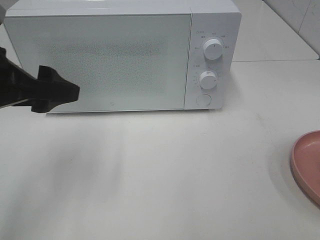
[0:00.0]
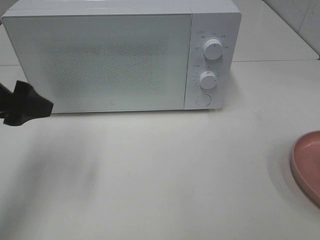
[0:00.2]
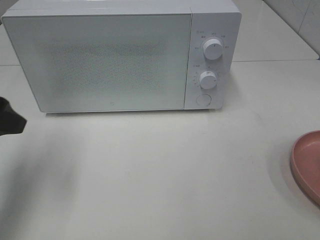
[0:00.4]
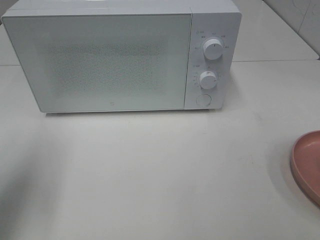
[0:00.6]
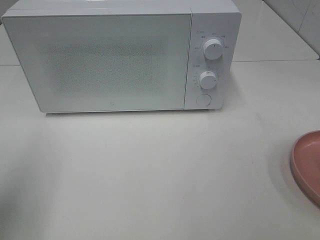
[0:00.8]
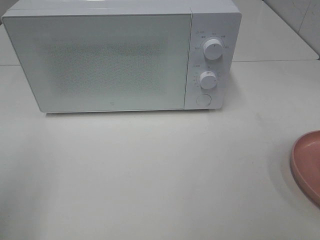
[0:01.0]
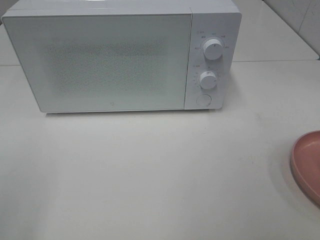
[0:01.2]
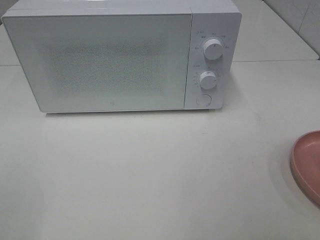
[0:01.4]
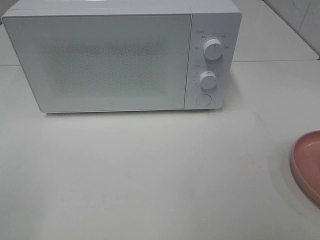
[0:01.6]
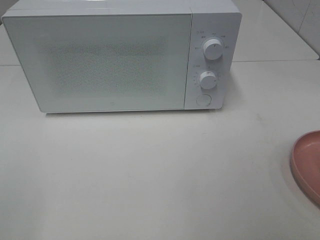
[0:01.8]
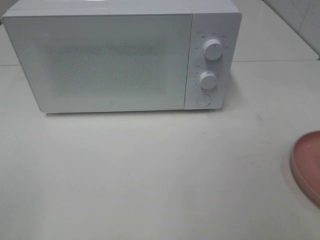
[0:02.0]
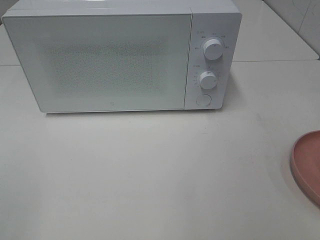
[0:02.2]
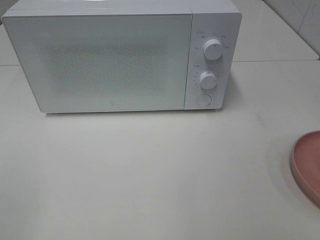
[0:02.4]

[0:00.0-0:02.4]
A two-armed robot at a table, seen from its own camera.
Task of the whole recording: Heat the burger.
0:00.0 to 0:01.2: The left gripper shifts about 20 cm backward and to the left.

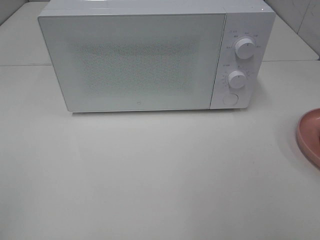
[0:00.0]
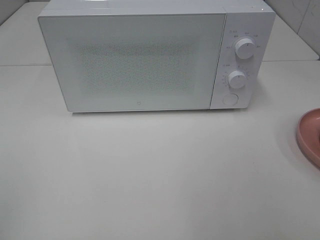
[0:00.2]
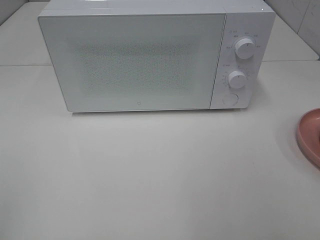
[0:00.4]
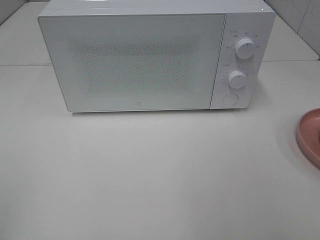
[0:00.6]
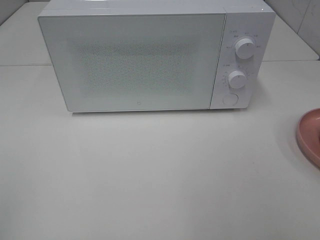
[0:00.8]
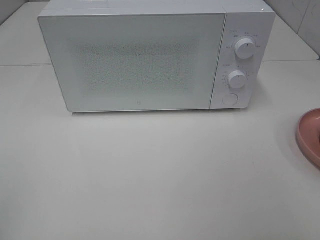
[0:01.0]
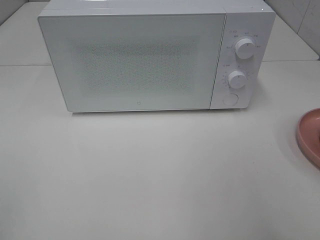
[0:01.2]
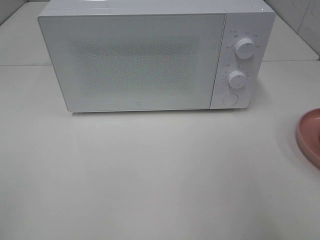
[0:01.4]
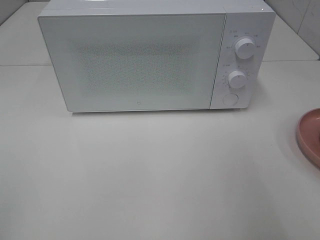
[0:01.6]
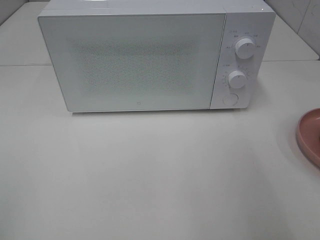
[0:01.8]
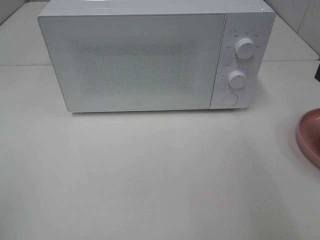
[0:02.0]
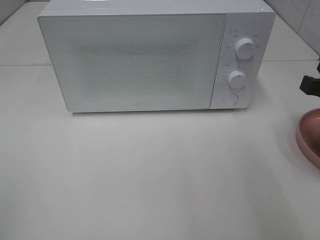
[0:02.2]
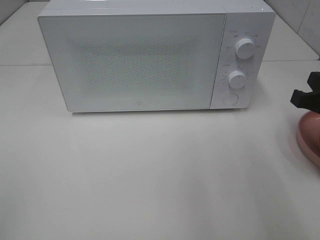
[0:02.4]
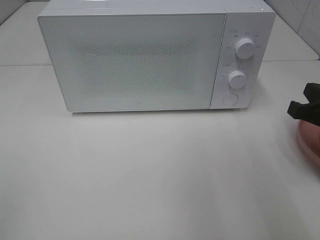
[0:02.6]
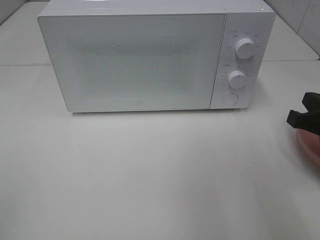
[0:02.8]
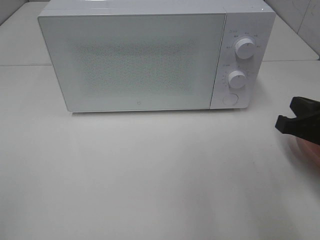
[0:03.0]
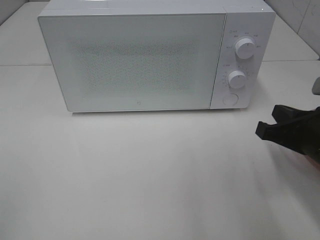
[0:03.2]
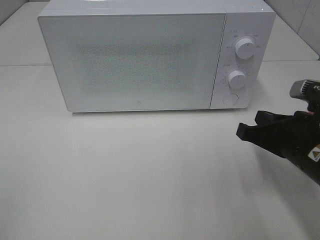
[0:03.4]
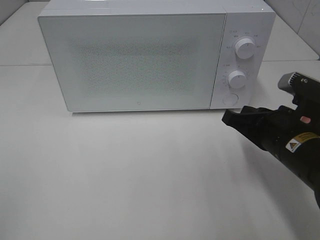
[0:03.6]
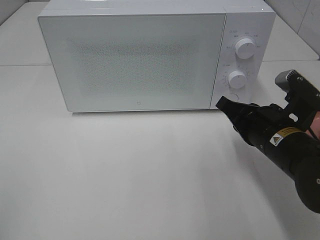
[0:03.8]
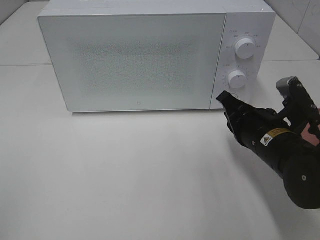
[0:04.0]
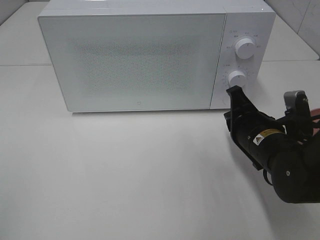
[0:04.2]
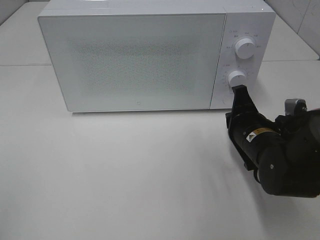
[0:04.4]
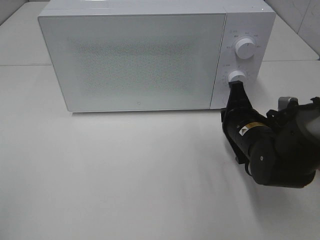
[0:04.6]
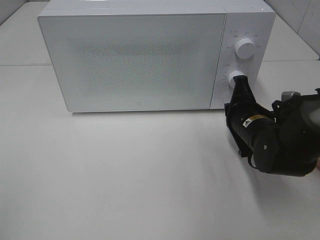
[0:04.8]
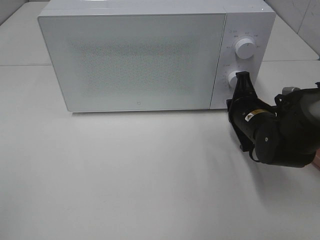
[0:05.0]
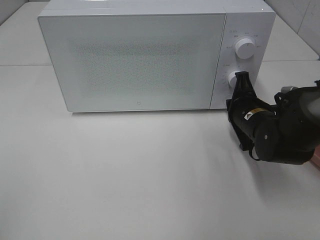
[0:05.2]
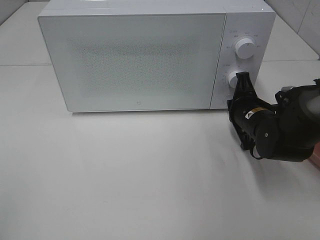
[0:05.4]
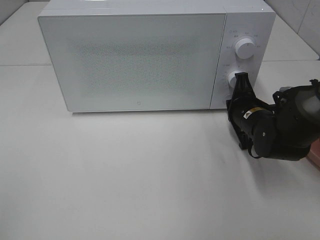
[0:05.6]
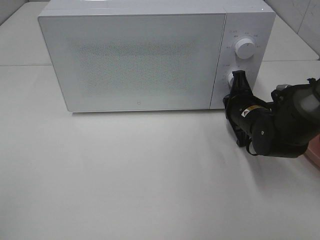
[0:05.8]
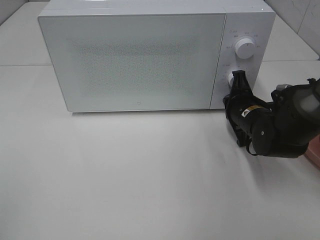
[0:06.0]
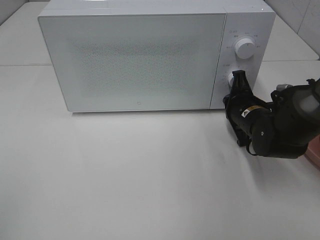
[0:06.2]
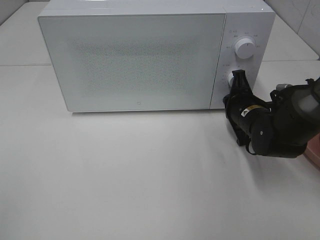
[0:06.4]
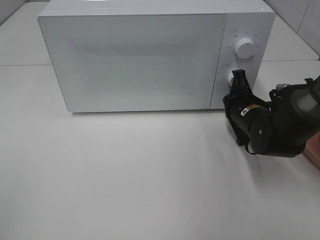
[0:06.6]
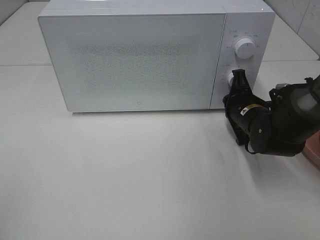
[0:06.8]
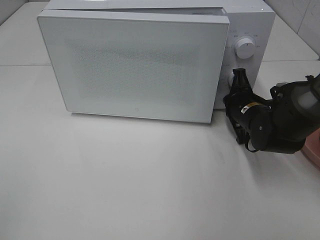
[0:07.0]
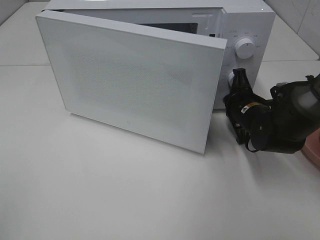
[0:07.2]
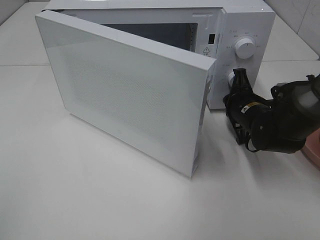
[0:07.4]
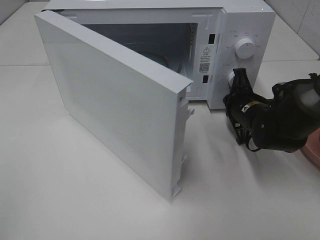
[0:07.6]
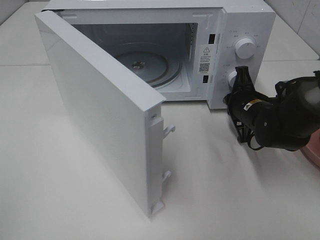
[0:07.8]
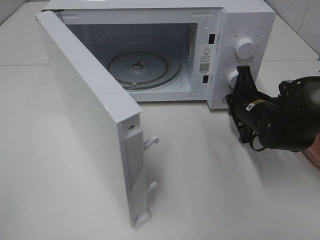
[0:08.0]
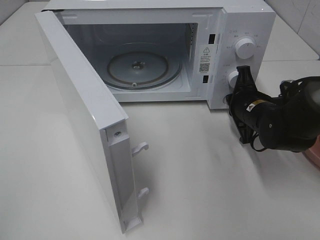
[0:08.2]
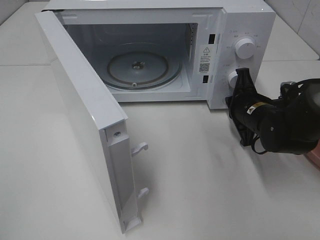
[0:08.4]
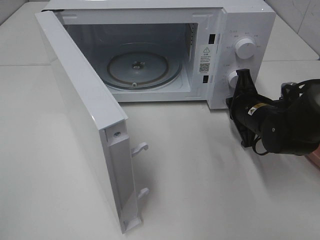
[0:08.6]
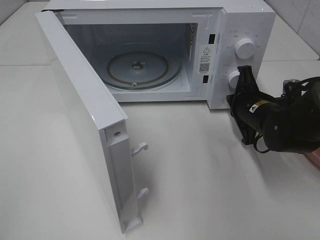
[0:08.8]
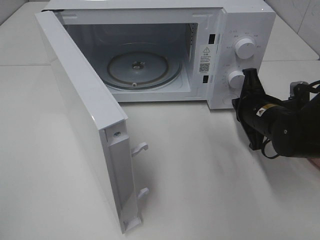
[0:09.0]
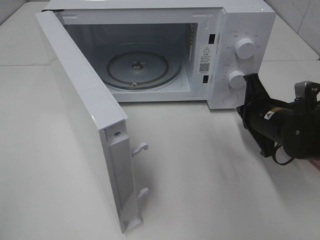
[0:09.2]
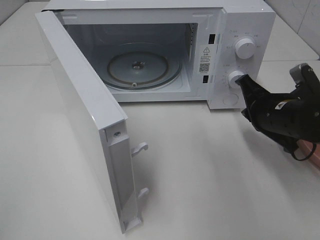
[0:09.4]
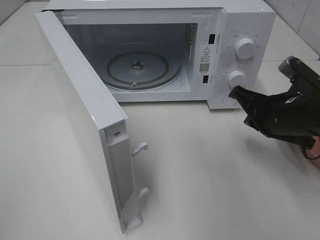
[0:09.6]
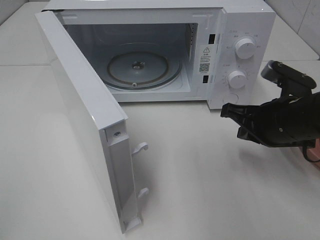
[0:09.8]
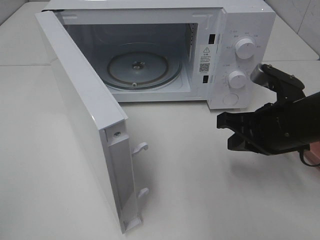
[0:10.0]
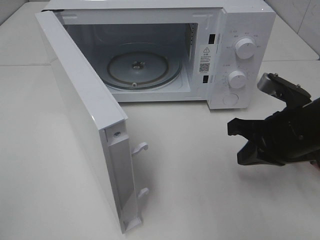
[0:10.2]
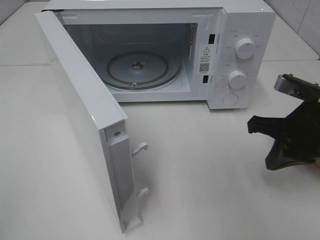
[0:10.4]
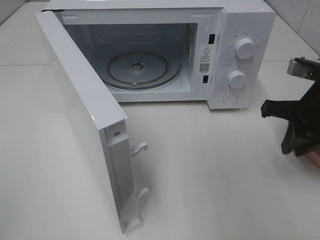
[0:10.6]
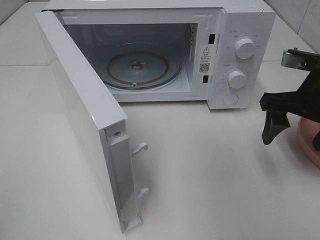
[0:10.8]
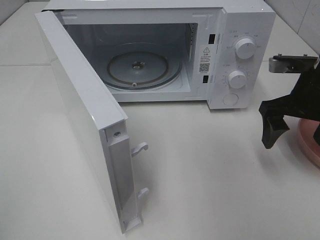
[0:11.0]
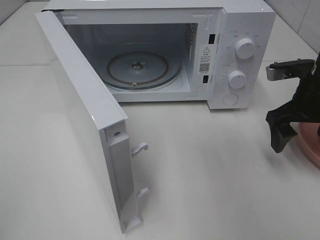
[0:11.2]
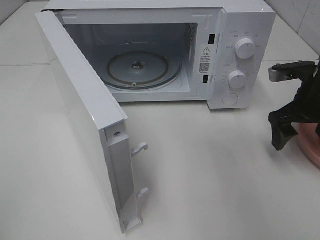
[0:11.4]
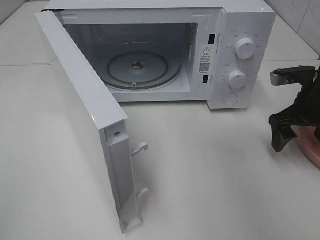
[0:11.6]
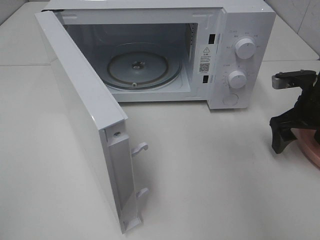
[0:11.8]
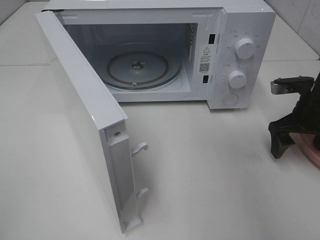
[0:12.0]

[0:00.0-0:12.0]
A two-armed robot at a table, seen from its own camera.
Task of the whole recording: Heat the burger.
Step, 0:00.0 to 0:08.4: Right hand: press the switch.
0:01.6 to 0:03.0: The right gripper goes about 15 cm downward.
0:03.0 to 0:04.4: The right gripper is displaced to the left, downward and forward by about 15 cm.
0:04.4 to 0:06.0: The right gripper travels forward by about 5 cm.
0:09.0 to 0:10.4: The right gripper shifts about 10 cm upward and backward.
0:10.4 to 0:12.0: The right gripper moves forward, to the right and downward, about 10 cm, and opens.

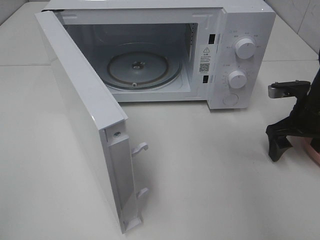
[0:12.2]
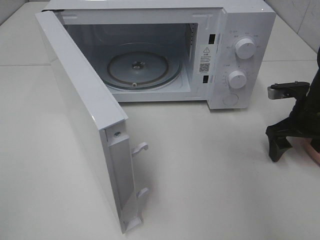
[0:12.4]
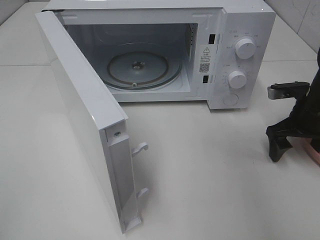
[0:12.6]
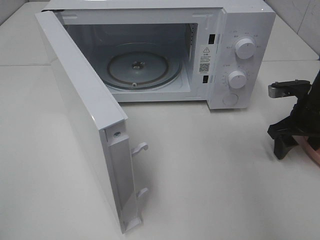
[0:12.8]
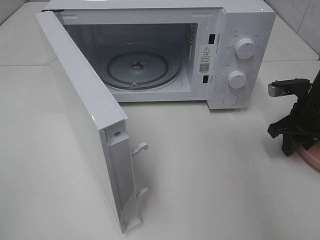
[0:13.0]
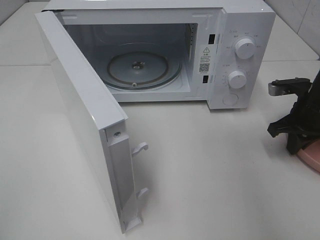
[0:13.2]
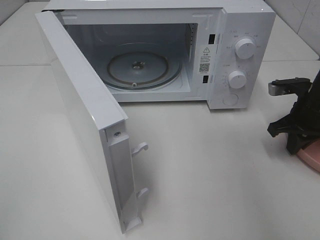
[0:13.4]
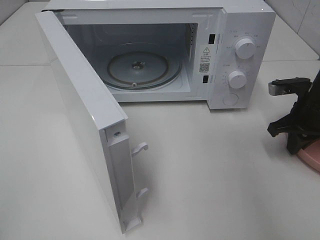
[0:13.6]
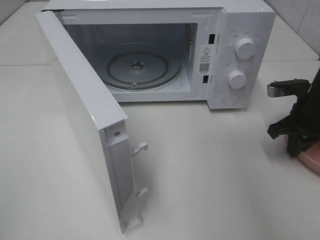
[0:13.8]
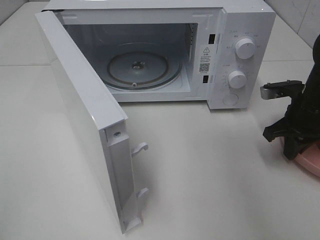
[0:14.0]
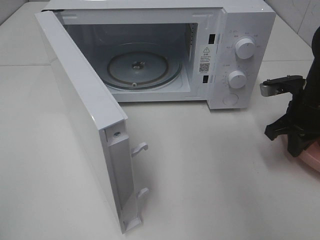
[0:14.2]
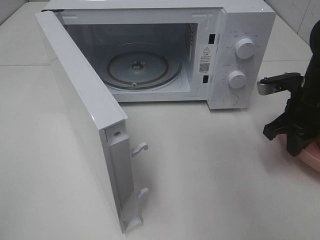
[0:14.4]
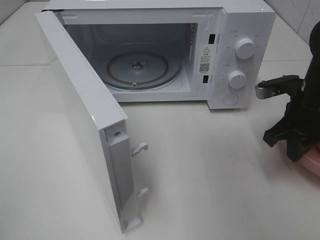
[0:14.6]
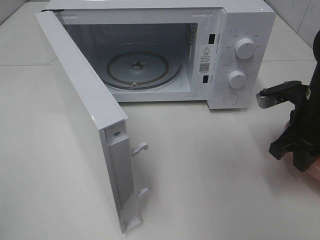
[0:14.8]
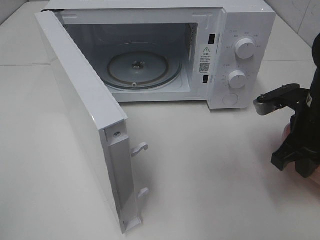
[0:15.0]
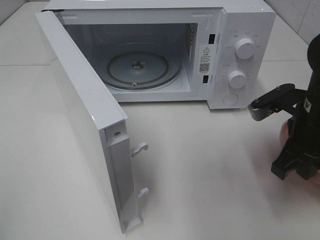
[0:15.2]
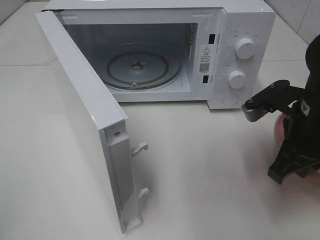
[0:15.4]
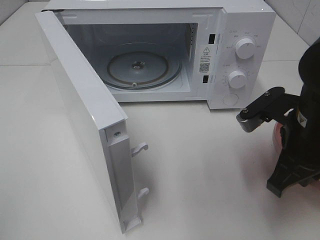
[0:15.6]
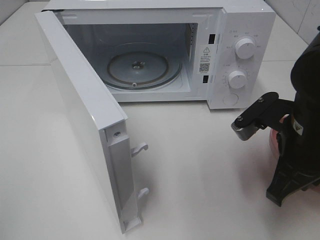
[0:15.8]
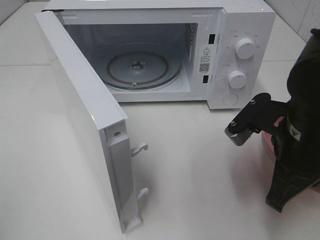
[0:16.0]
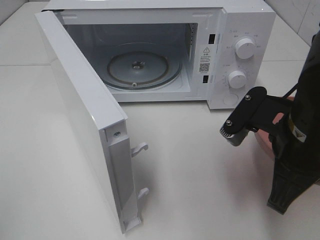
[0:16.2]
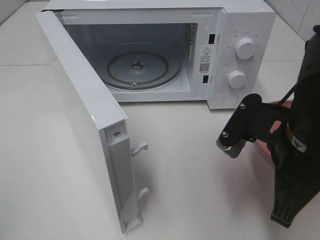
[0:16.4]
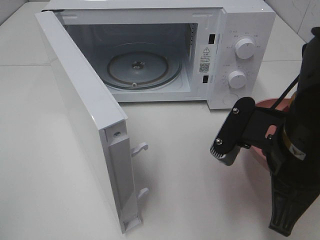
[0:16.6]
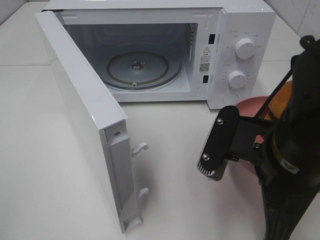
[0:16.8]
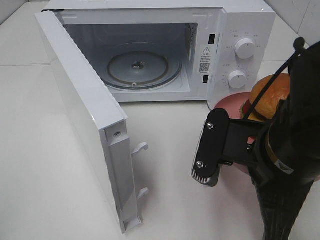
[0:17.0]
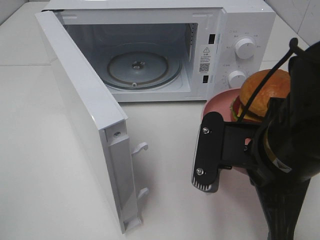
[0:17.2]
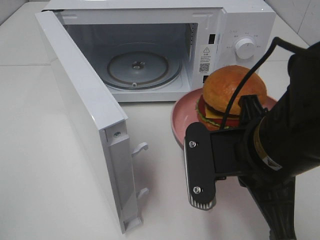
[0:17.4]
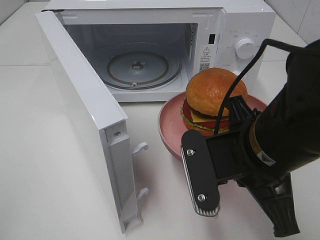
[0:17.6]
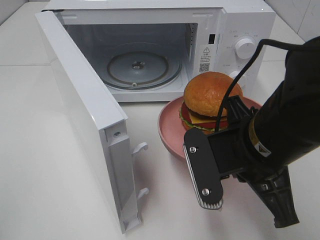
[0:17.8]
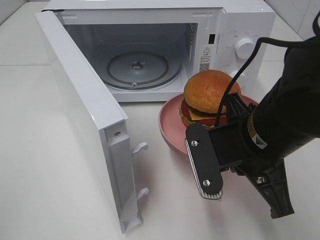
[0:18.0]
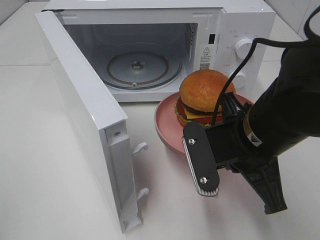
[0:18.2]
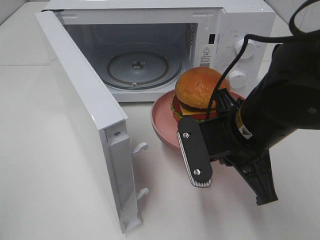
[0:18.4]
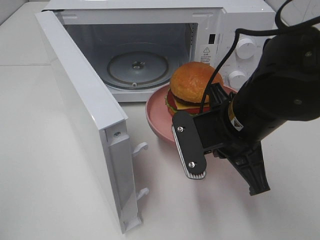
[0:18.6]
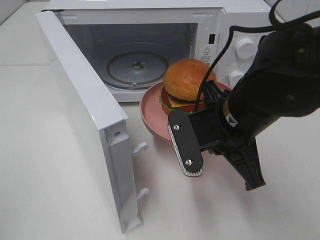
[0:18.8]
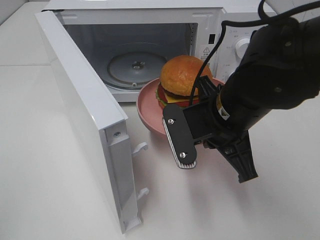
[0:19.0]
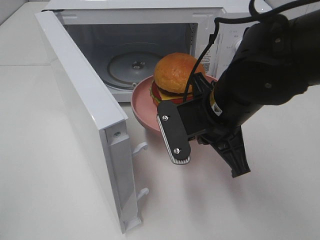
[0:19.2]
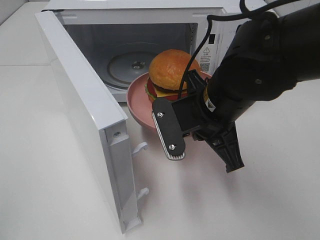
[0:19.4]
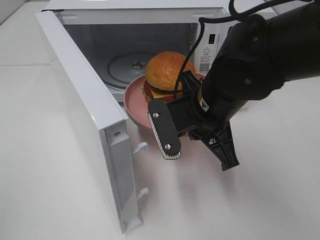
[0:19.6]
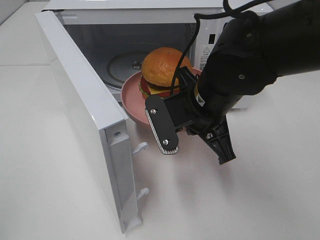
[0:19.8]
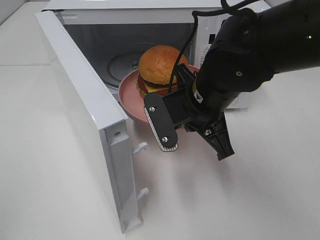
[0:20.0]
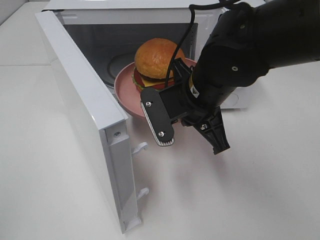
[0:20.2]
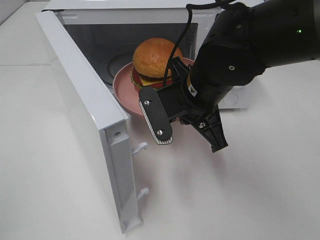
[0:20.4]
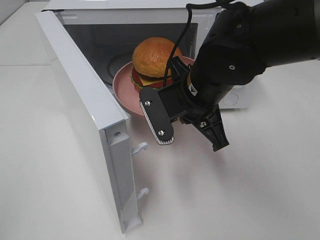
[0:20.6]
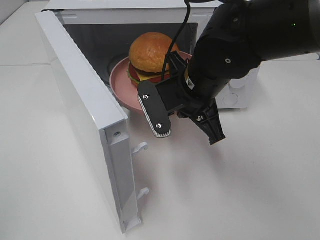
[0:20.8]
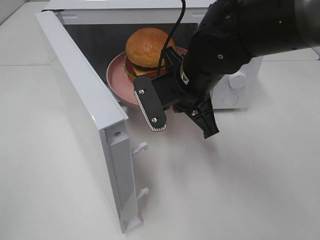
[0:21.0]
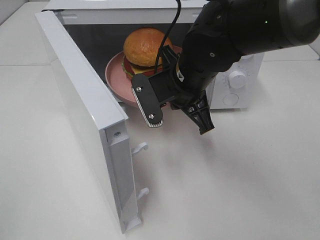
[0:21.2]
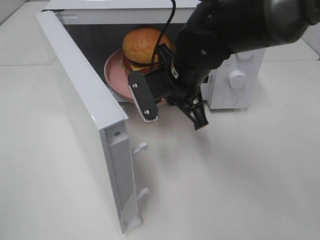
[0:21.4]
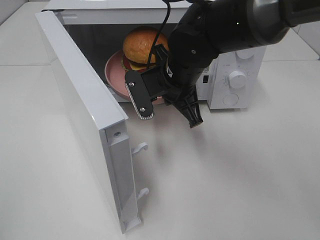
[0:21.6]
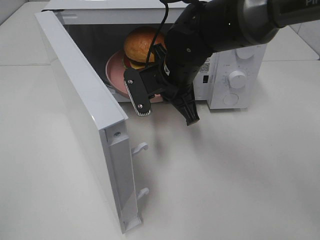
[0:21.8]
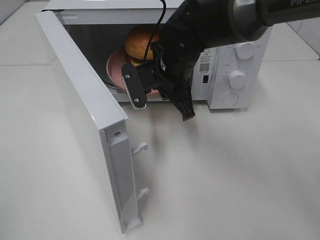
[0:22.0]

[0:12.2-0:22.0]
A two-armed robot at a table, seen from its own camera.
Task of the whole recording: Heat the burger.
0:12.2 to 0:13.6: The right gripper closes up.
0:13.6 to 0:15.0: The right gripper travels backward, to the left and upward by some 10 cm.
0:15.0 to 0:16.4: The right gripper moves backward and to the left, roughly 10 cm.
0:17.8 to 0:19.2: The right gripper moves forward, roughly 5 cm.
0:19.2 to 0:20.6: The grippers stay close to where they were, moving slightly.
0:20.6 to 0:22.0: The right gripper heads forward, covering some 10 cm.
